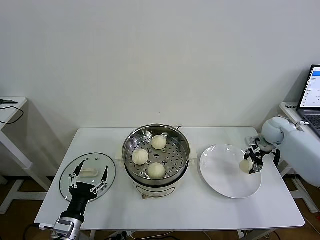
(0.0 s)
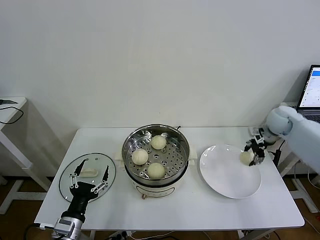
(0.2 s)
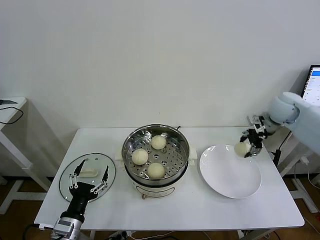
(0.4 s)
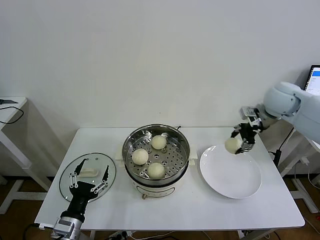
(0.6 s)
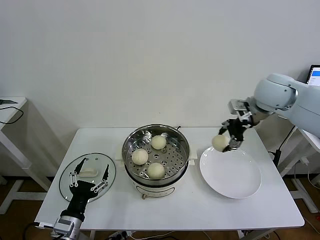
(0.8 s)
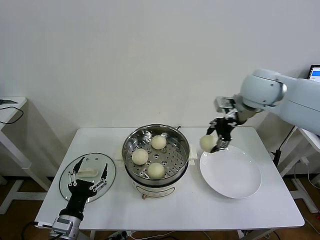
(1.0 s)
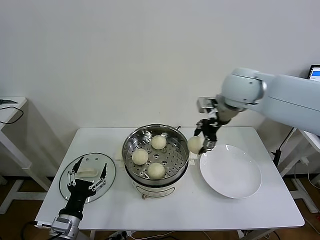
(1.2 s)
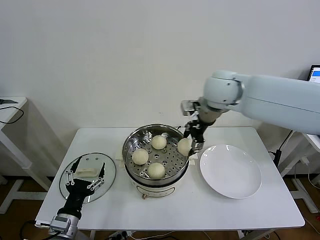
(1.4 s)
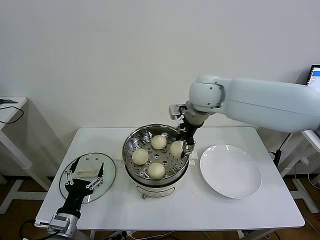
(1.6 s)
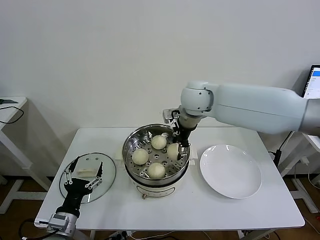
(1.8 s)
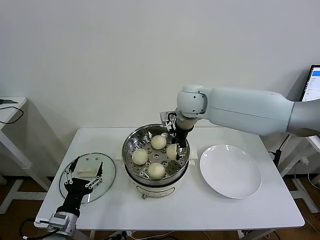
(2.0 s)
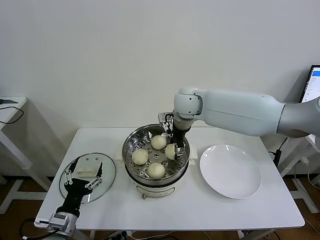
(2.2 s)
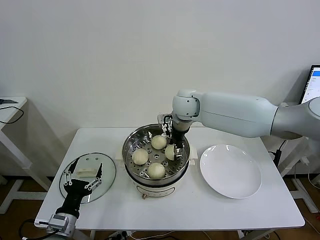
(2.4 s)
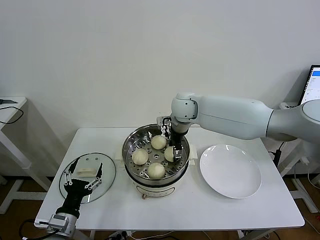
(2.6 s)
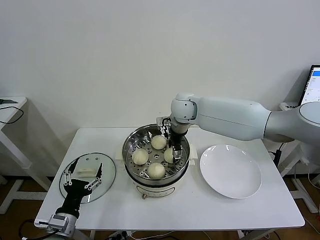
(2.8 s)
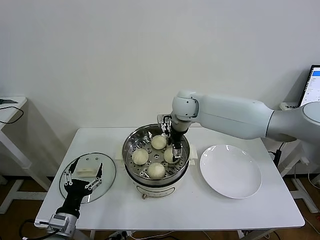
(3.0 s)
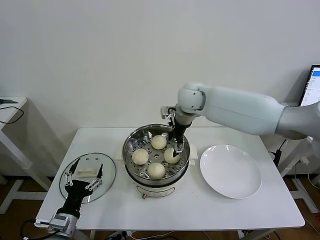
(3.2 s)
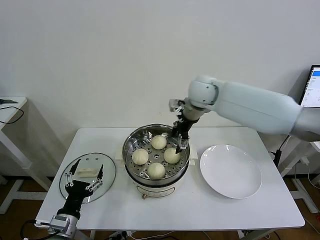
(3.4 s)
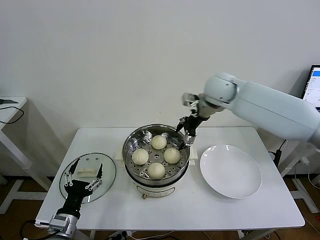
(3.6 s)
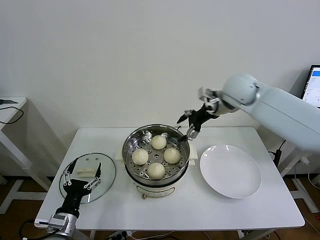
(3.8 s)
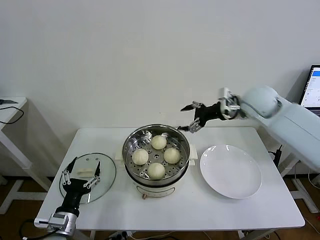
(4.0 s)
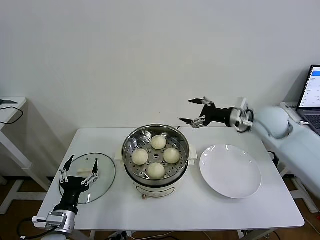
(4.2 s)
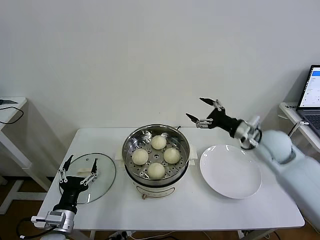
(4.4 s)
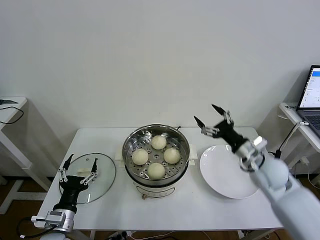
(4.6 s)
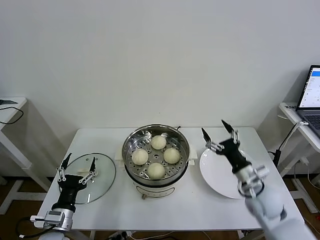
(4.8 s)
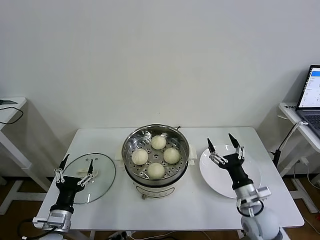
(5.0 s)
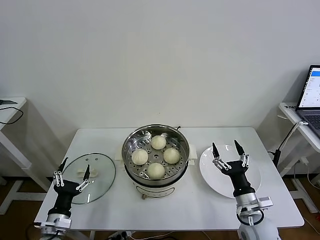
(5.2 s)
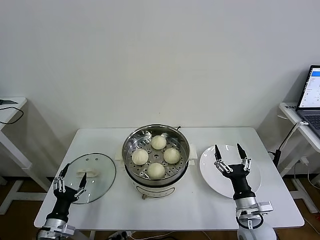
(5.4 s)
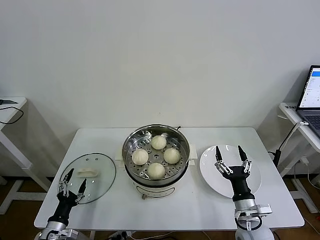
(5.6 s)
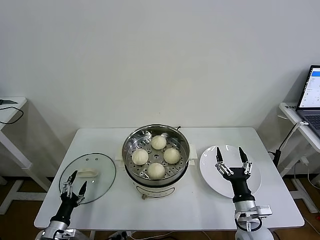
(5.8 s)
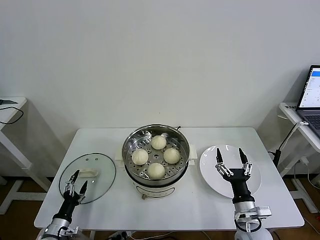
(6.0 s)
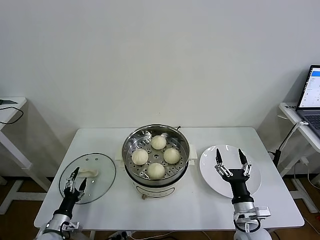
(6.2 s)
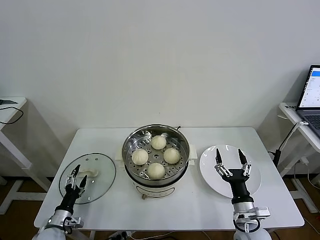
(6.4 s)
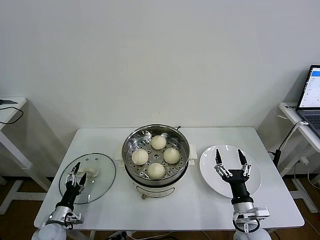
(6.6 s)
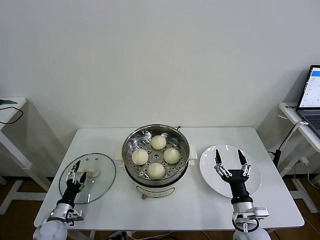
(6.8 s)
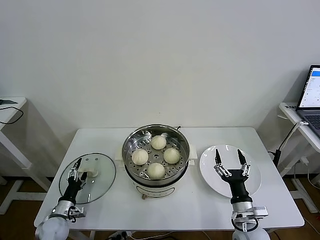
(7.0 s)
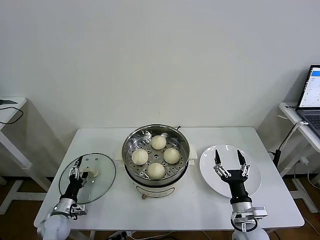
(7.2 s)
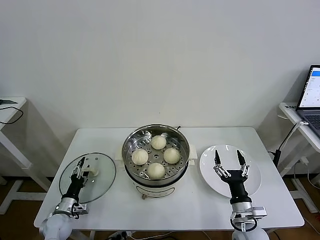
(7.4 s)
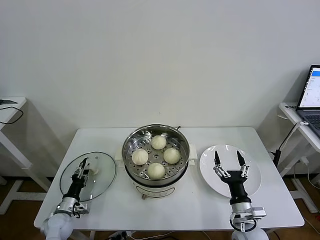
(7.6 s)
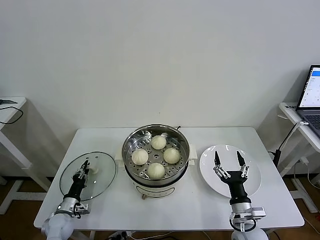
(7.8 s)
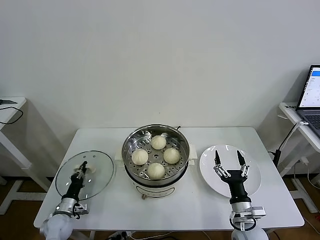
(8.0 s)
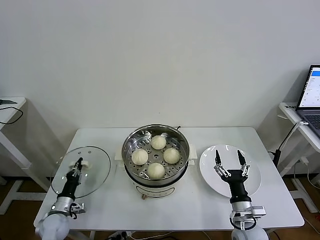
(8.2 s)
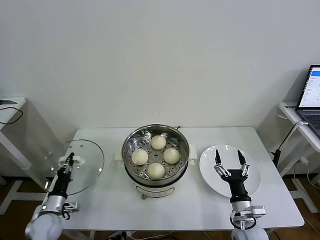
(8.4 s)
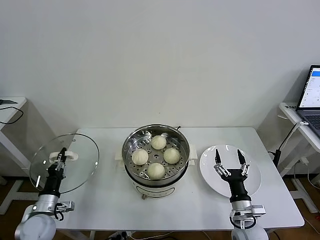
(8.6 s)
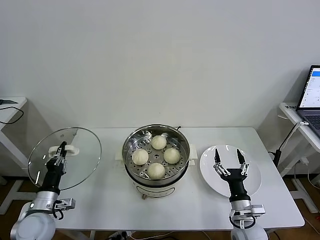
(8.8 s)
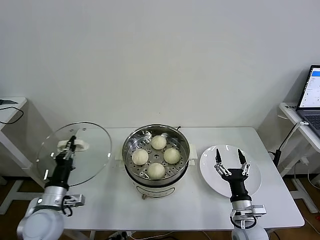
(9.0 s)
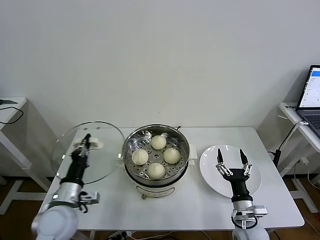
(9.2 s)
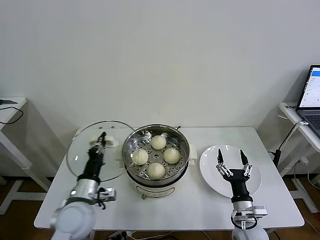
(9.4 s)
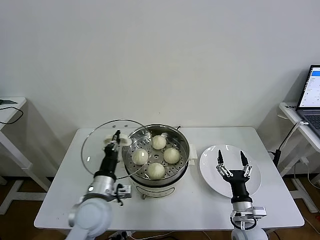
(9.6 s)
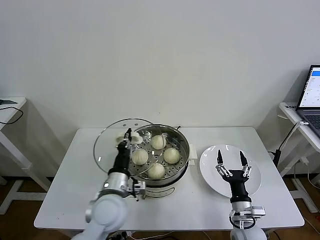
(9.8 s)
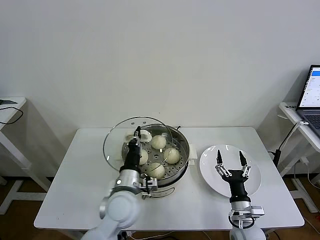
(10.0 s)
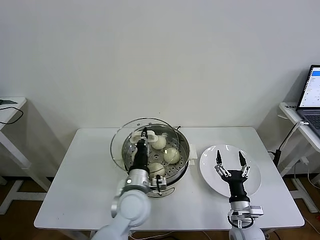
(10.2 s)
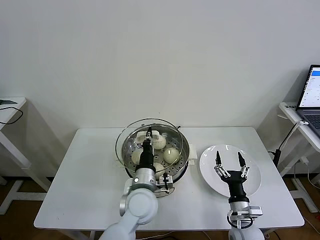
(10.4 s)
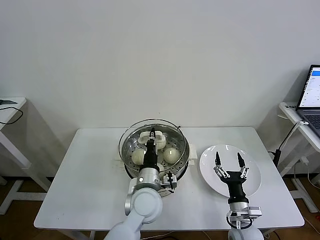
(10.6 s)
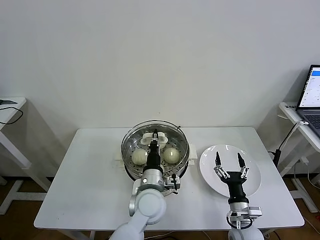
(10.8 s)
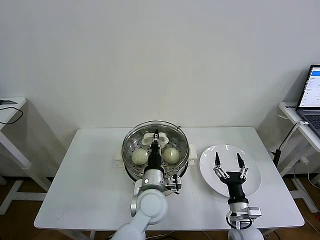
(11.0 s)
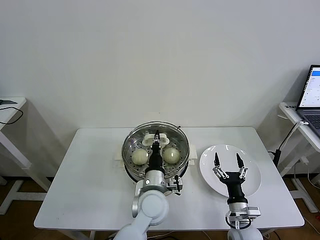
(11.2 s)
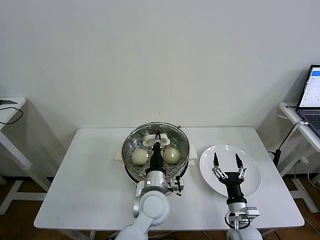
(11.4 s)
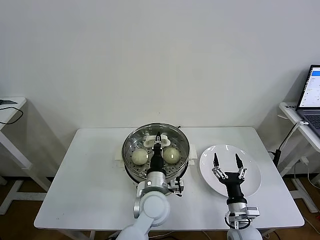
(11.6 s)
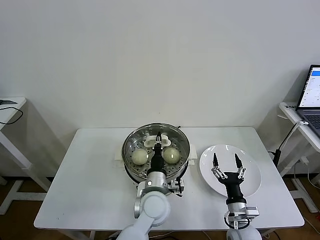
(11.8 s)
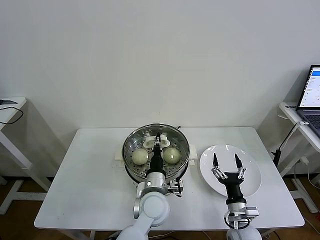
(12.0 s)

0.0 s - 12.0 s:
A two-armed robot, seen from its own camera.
Task of the whole recording: take steamed baozi put them in steamer then cover it.
Step, 0.0 s - 2.8 s: Place the baozi on the steamer with right gripper.
Step, 3.0 s - 8.0 s: Grasp the pot lid with left gripper.
0.0 s - 1.6 s: The right gripper heads to the left and upward, covering approximately 35 cm.
1.6 s - 3.0 s: The right gripper travels downward and forward by approximately 10 cm, and opens.
3.0 s - 4.4 s: The right gripper heads to the right and backward, covering roughly 30 cm.
4.4 s - 6.0 s: The left gripper heads downward and to the left, covering some 15 cm; the right gripper is displaced backward and downward by roughly 30 cm.
6.0 s - 7.6 s: The left gripper travels forward by about 10 cm, and closes its fingers.
7.6 s - 9.0 s: The left gripper goes about 20 cm upward, and closes up.
9.0 s - 10.4 s: The left gripper shifts some 25 cm to the right.
10.4 s - 12.0 s: The left gripper shifts by approximately 5 cm.

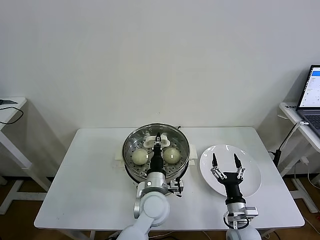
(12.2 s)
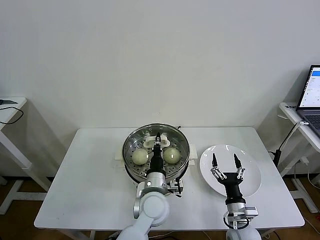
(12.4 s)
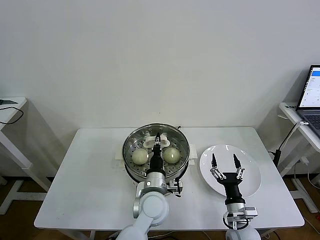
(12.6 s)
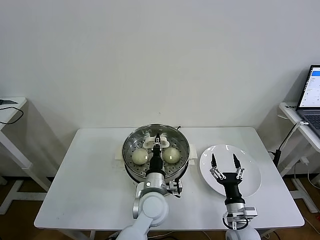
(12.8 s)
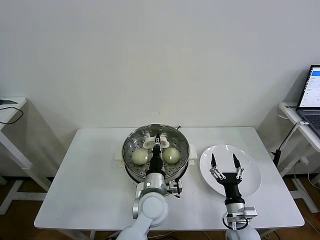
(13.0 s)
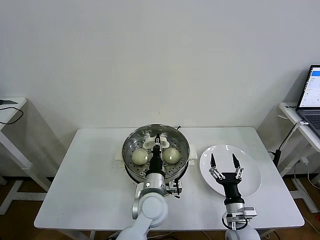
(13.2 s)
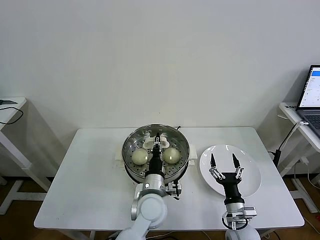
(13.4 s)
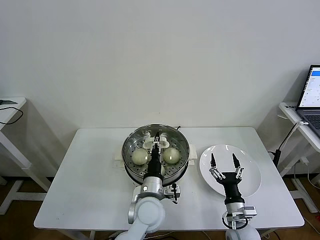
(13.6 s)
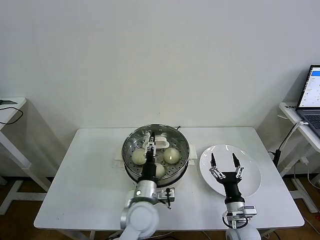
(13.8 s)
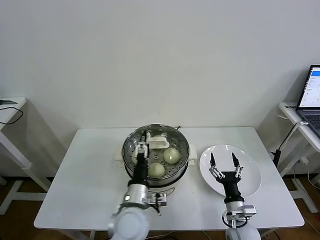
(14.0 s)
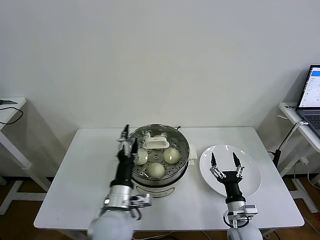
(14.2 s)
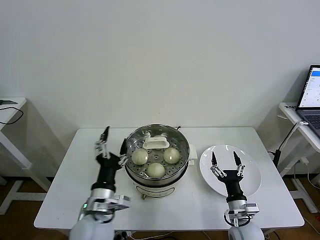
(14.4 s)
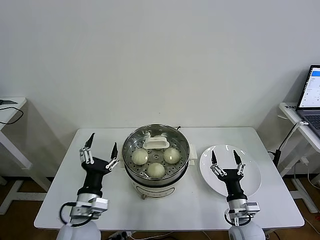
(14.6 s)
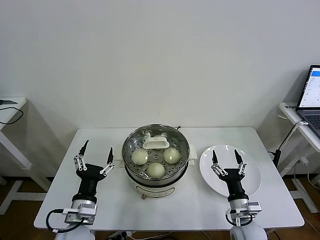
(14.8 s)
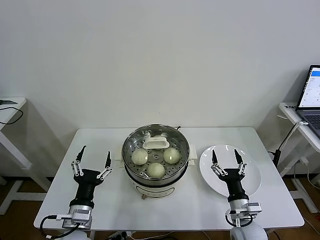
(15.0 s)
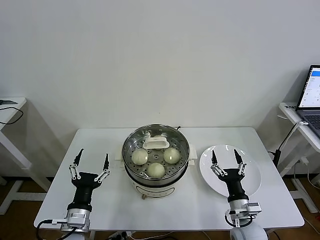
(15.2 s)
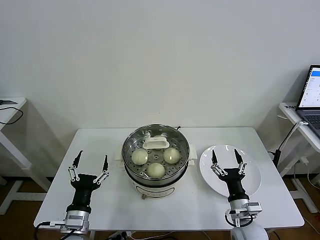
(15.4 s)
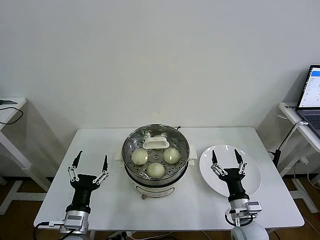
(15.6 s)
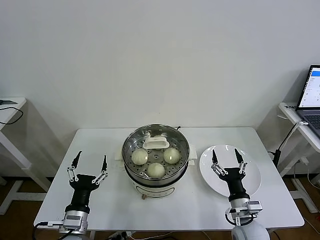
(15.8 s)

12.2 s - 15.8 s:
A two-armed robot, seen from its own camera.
Task of the whole recording: take steamed baozi put them in steamer then cover it.
12.2 s - 14.0 s: The left gripper goes about 5 cm to the left, and opens its fingers.
14.0 s - 15.8 s: The left gripper travels to the left by some 15 cm.
